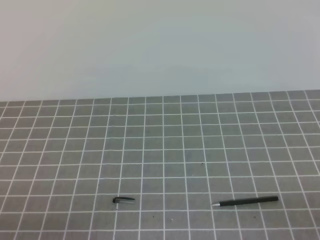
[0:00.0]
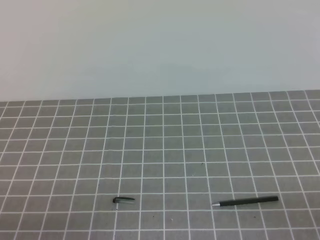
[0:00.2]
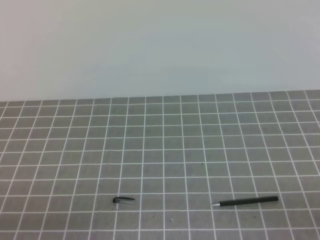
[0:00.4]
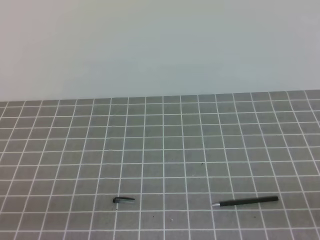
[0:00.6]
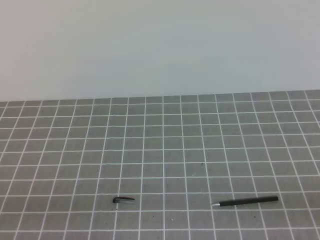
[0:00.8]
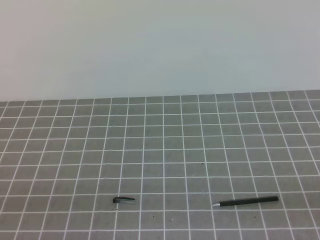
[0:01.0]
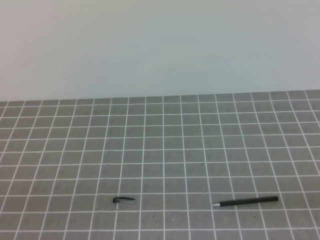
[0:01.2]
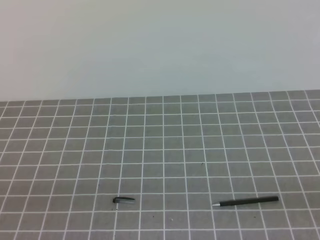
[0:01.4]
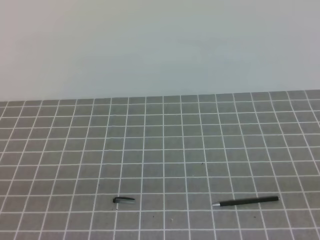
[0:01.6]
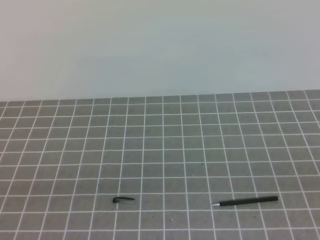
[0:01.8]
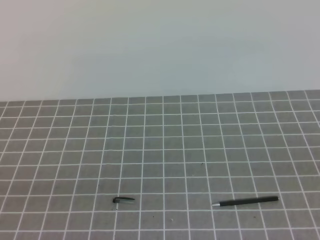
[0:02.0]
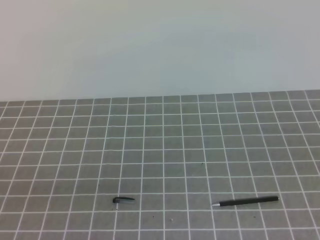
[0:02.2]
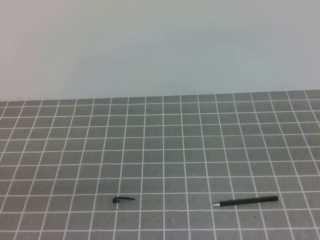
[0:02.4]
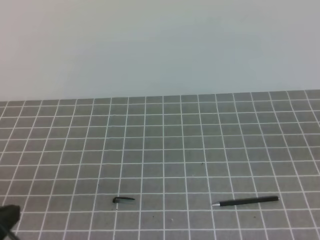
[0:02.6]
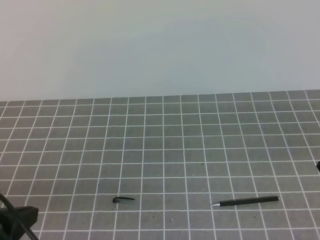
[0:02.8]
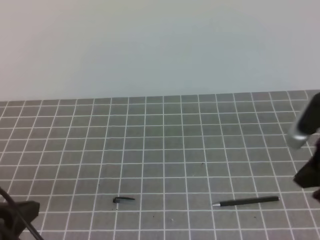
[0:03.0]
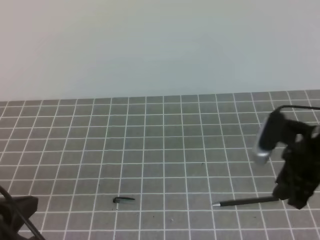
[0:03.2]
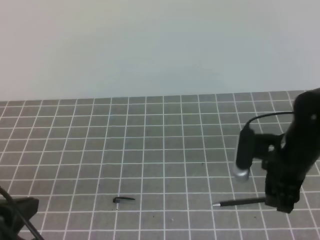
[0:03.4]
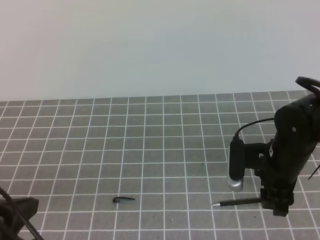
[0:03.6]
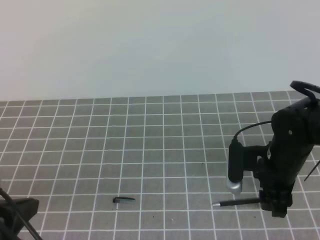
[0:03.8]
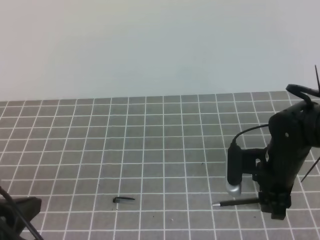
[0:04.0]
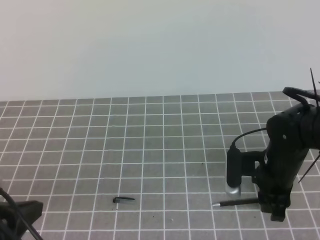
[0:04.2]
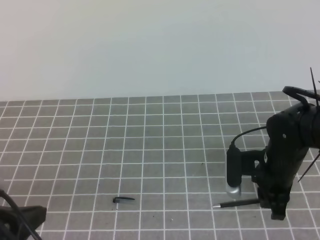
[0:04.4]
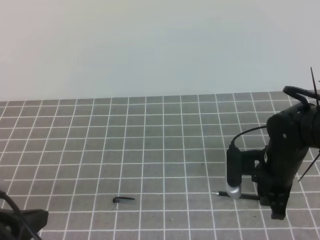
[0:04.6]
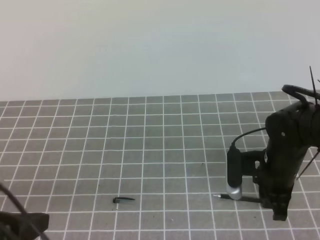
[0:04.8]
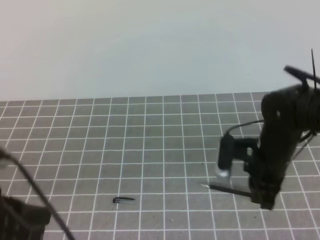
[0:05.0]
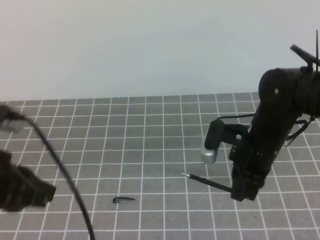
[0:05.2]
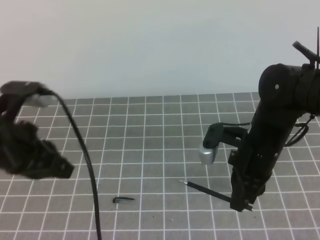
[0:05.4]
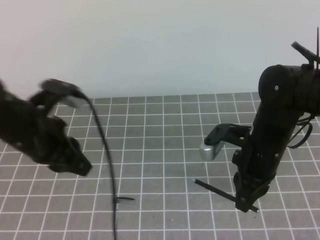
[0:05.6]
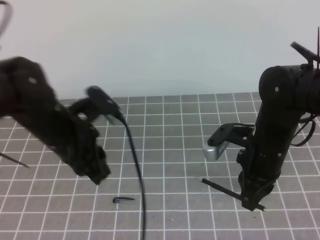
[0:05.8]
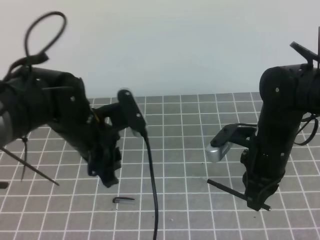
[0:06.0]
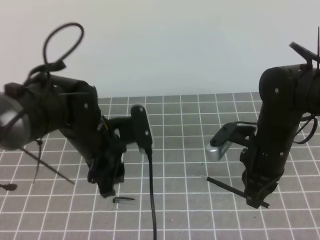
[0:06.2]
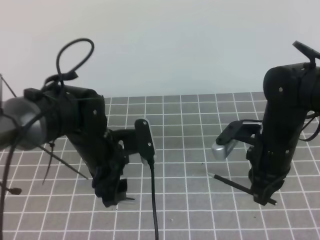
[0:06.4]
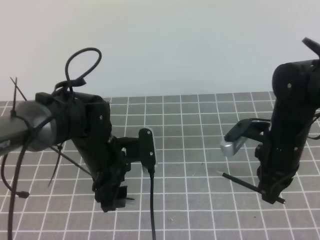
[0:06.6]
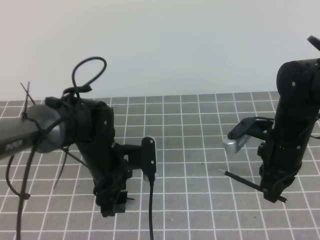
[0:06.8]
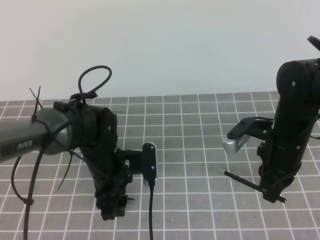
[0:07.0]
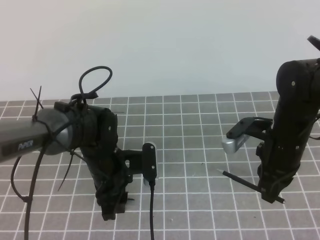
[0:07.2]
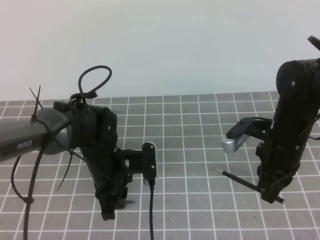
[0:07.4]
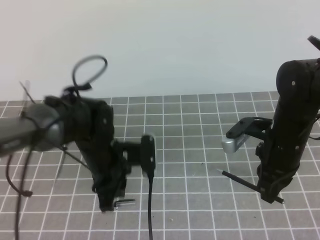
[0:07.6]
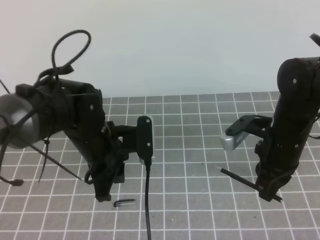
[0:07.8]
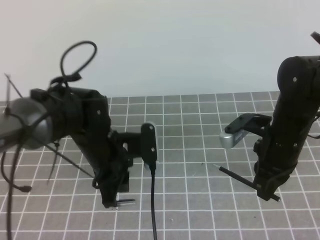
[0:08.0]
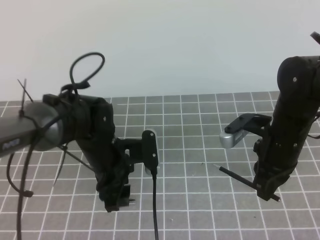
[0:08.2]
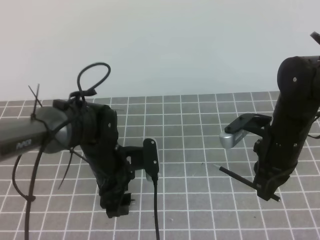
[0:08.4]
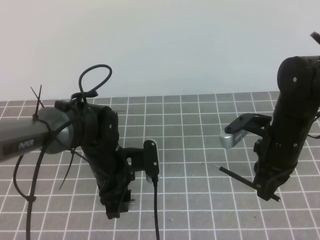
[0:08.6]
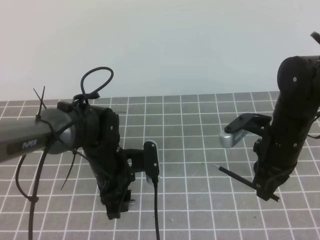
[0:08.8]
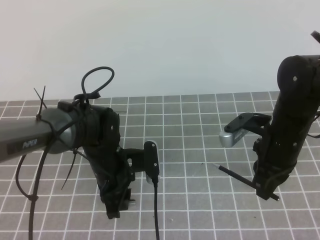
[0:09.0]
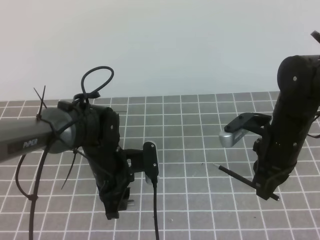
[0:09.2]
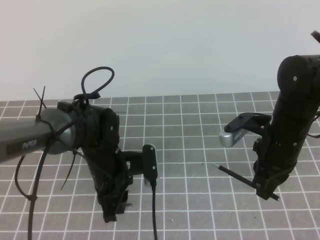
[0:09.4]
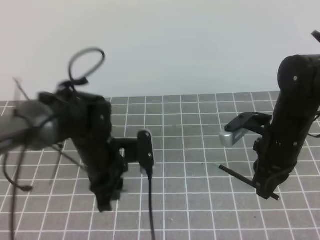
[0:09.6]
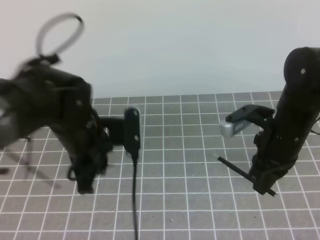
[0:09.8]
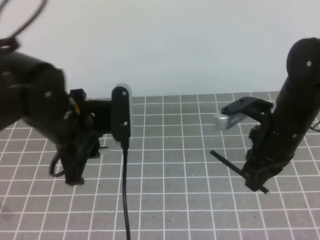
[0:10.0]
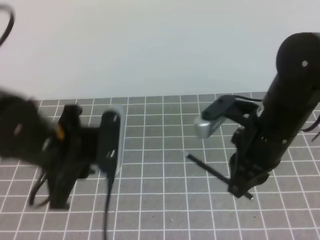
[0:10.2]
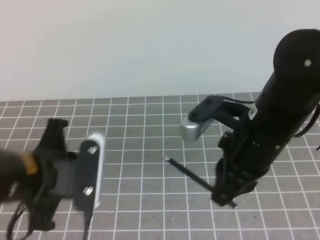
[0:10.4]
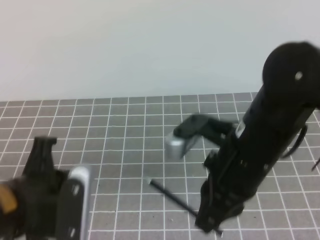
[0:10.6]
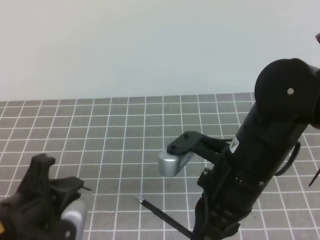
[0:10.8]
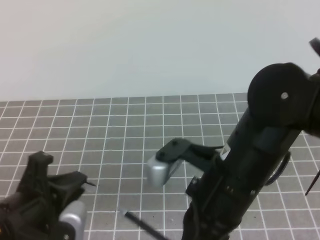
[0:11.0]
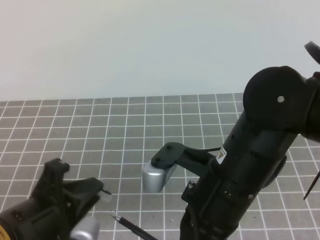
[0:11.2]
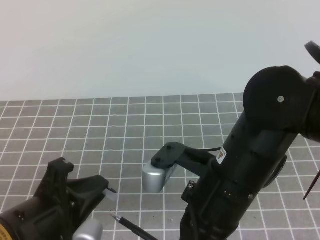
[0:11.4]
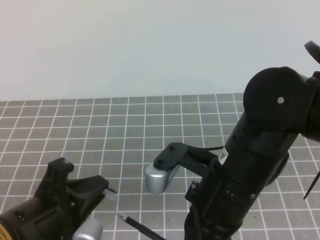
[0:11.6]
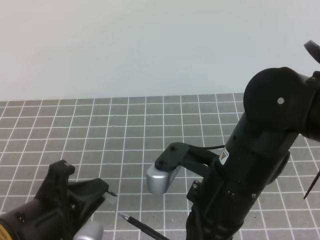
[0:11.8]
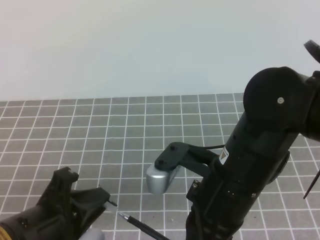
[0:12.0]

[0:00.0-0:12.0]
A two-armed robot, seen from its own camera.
Task of the whole recording: on the grey tablecloth, hold the pen cap in one hand and the pen in the other, then cover the pen cap.
0:01.6 to 0:03.0: The right gripper travels forward by roughly 20 cm. The left gripper is displaced forward by roughly 5 cm.
0:03.0 to 0:04.4: The right gripper moves downward, to the left and forward, some 20 cm, and opens its fingers.
0:04.4 to 0:06.0: The left gripper goes roughly 20 cm forward and to the right, and opens its fingers; the right gripper travels upward by approximately 5 cm, and closes up.
0:06.0 to 0:07.6: The left gripper travels downward by about 10 cm, and closes its fingers.
0:07.6 to 0:09.0: The left gripper opens its fingers.
0:09.0 to 0:10.4: The right gripper moves upward, backward and to the left, some 10 cm. The left gripper heads upward, backward and to the left, covering roughly 20 cm, and closes up.
0:10.4 to 0:12.0: The right gripper moves backward and to the left, about 10 cm. The left gripper travels backward by approximately 10 cm.

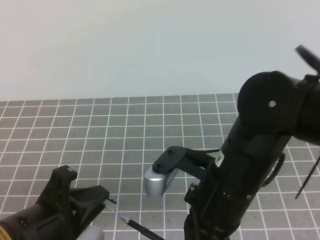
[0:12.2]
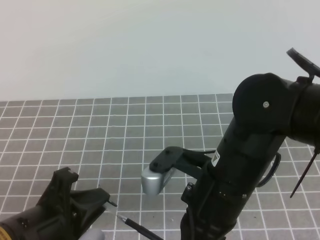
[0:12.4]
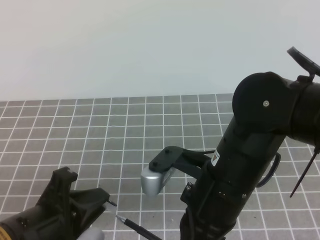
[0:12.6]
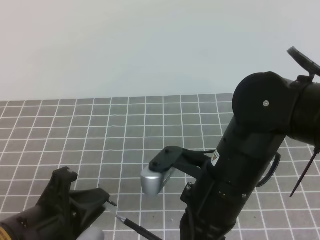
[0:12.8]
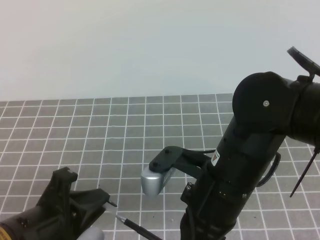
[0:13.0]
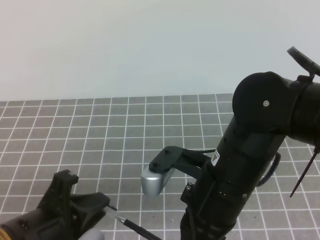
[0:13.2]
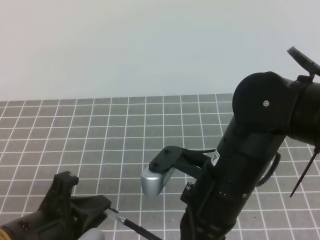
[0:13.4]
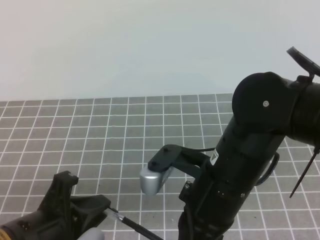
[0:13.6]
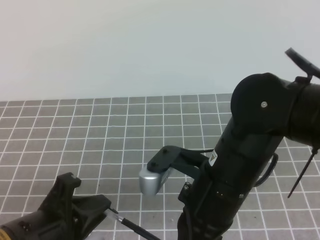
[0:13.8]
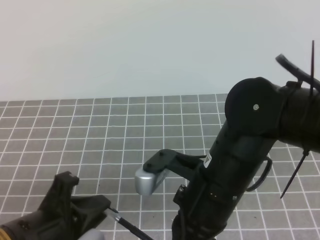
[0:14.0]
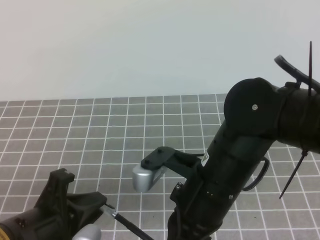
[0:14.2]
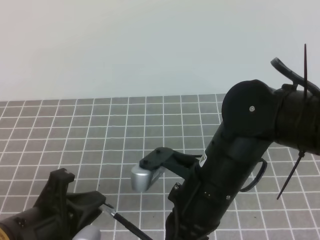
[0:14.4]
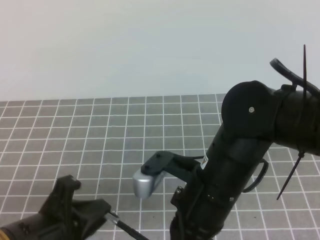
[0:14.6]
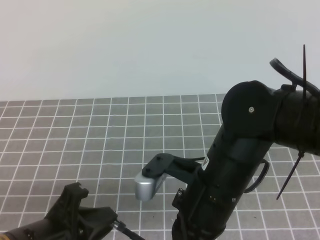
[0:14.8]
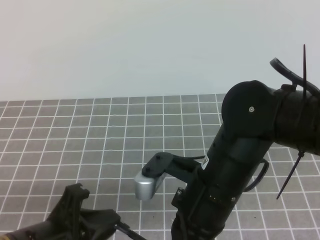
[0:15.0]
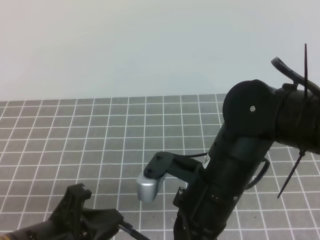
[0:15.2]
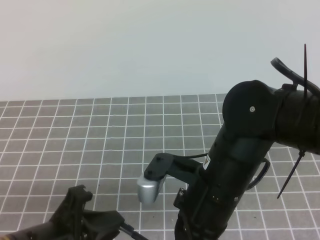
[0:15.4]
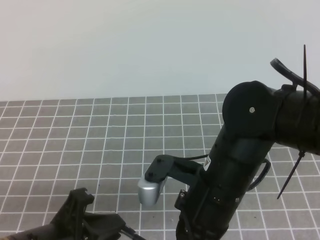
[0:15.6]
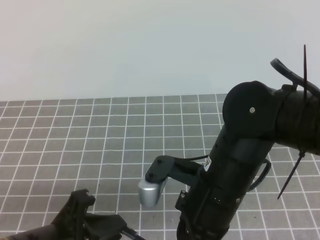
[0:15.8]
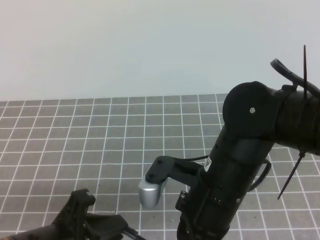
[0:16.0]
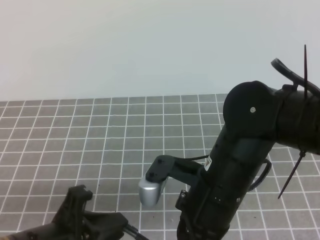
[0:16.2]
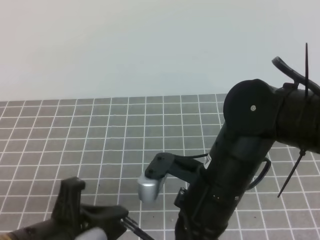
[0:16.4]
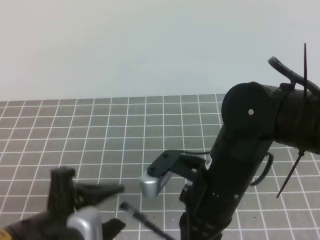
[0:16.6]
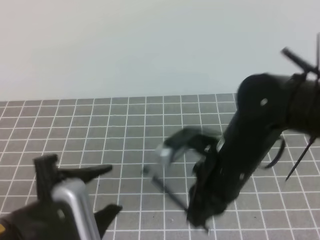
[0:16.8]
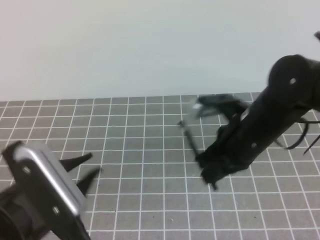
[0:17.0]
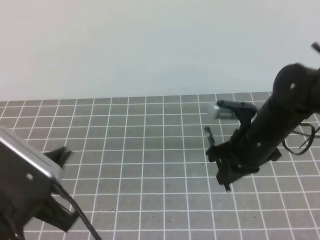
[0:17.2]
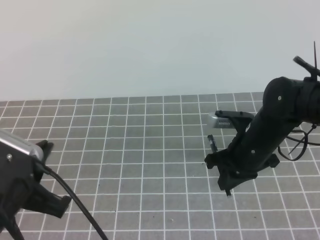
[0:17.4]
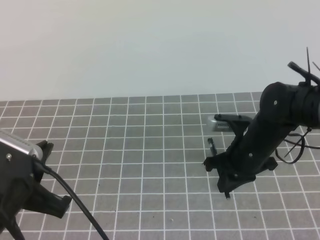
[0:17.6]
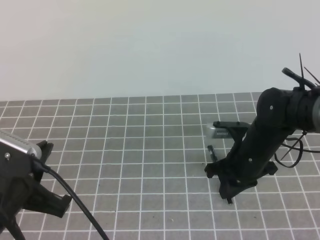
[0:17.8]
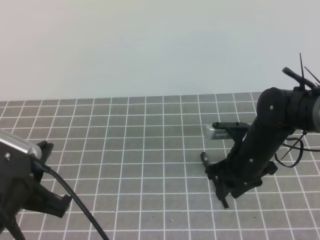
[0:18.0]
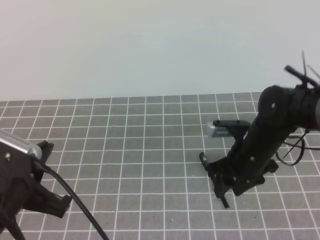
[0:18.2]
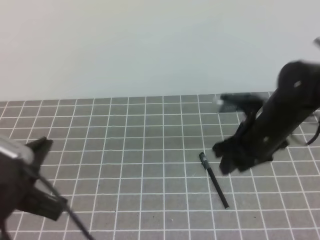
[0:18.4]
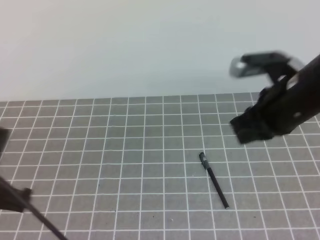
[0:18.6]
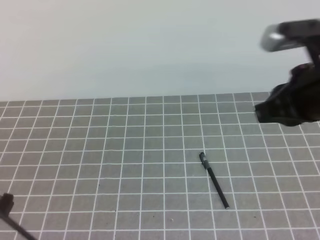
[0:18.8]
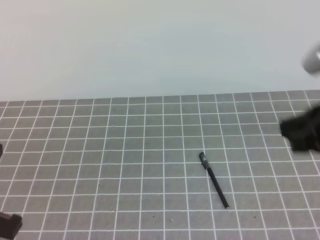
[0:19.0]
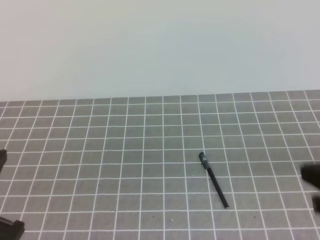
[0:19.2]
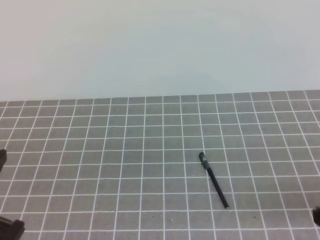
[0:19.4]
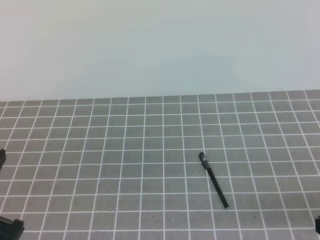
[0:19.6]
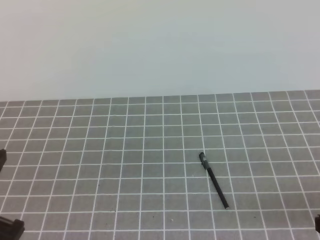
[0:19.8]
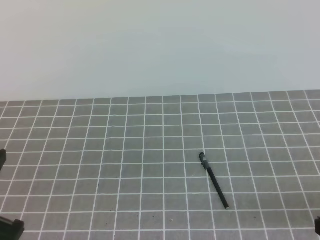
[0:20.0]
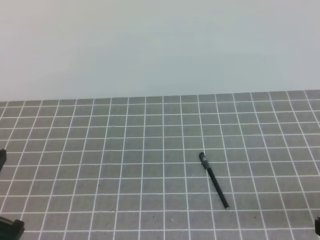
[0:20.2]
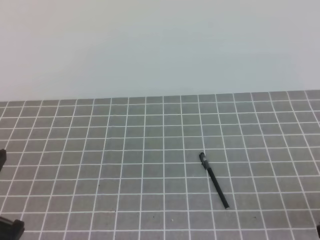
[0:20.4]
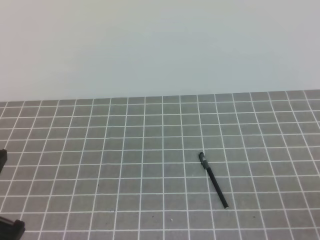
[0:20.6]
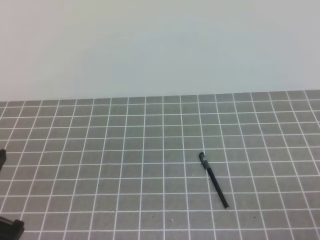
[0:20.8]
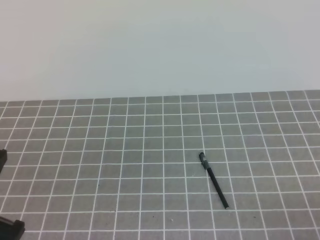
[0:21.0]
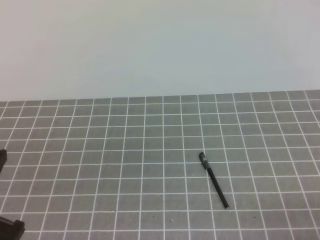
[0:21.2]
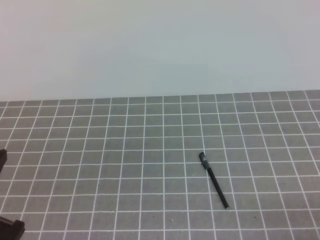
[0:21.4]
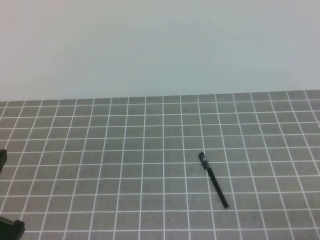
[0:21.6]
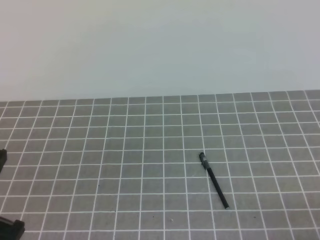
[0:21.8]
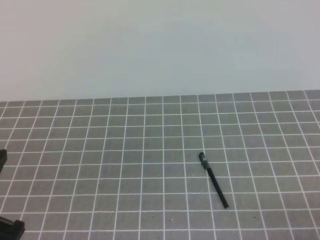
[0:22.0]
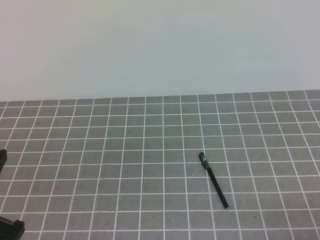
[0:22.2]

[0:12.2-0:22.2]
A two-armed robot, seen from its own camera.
Task of the whole recording: on the grey tablecloth, hold the pen cap in one hand and the pen in the other, then cover the pen cap.
0:12.2 to 0:13.6: The two grippers keep their place.
0:13.6 to 0:16.4: The grippers stay close to where they were, moving slightly.
0:16.4 to 0:18.0: The left gripper moves about 5 cm, and opens and closes again. The right gripper goes approximately 20 cm forward, downward and to the right, and opens up.
0:18.0 to 0:19.4: The right gripper travels backward, upward and to the right by approximately 25 cm, and closes its fingers. Meanwhile the left gripper ends up roughly 5 cm from where it was.
